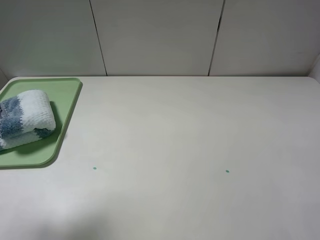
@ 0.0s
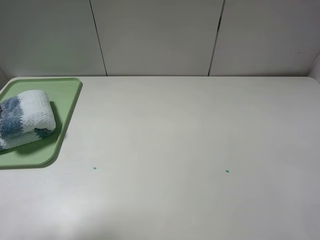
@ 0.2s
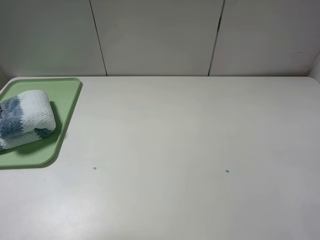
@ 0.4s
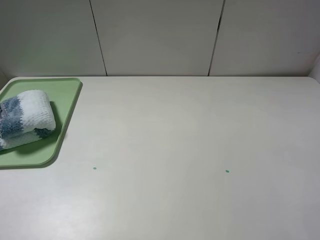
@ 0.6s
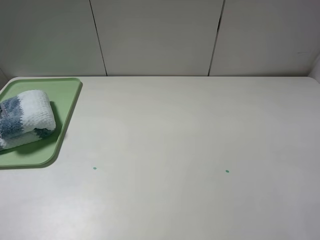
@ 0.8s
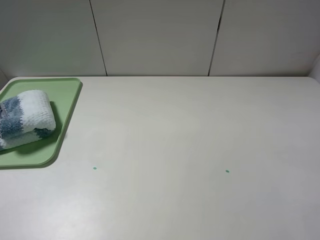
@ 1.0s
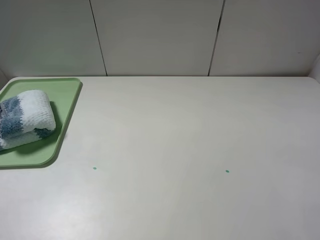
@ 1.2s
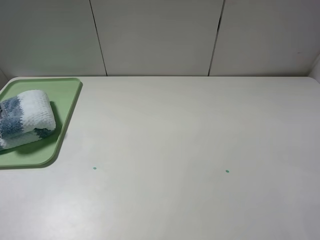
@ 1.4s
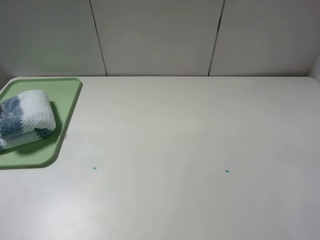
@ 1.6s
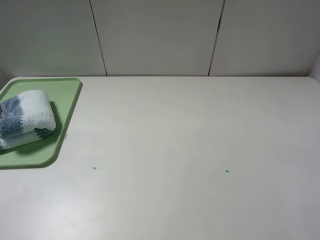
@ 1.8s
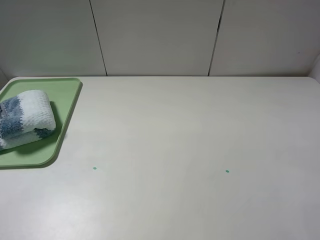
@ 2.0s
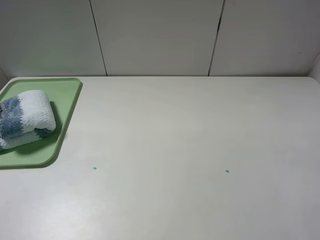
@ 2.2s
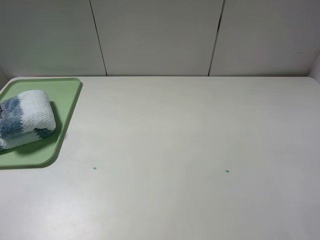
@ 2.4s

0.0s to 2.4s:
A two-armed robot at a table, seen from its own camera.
0.0s to 1.2s: The left gripper travels backward and downward by roughly 15 cm.
